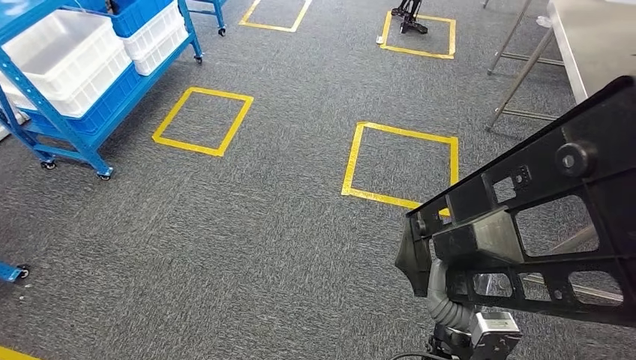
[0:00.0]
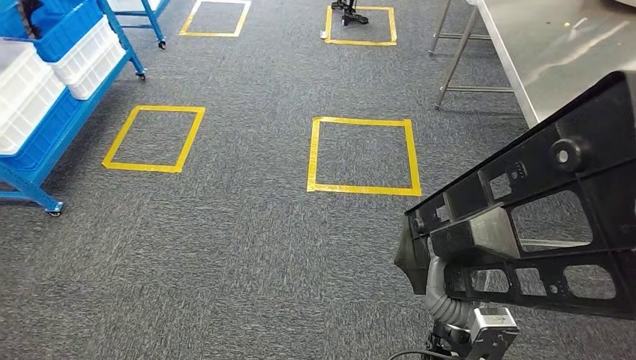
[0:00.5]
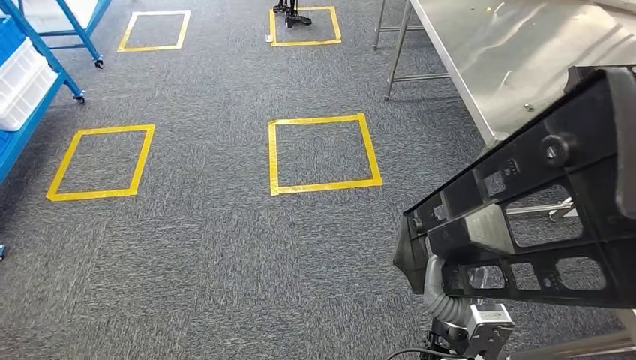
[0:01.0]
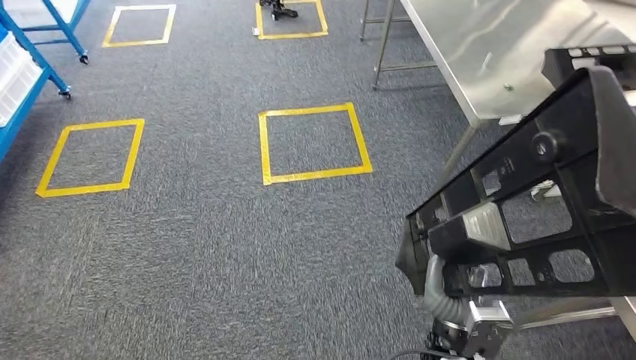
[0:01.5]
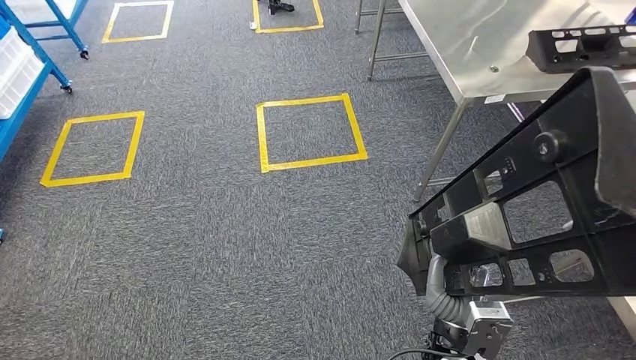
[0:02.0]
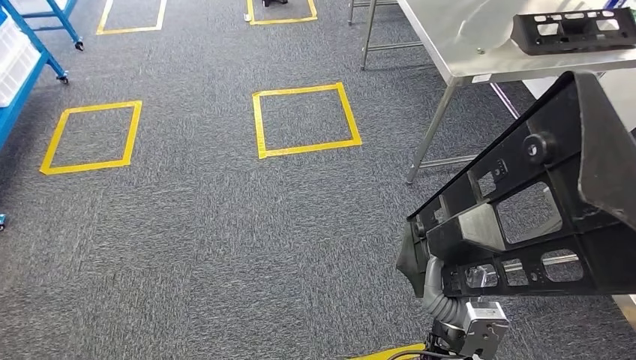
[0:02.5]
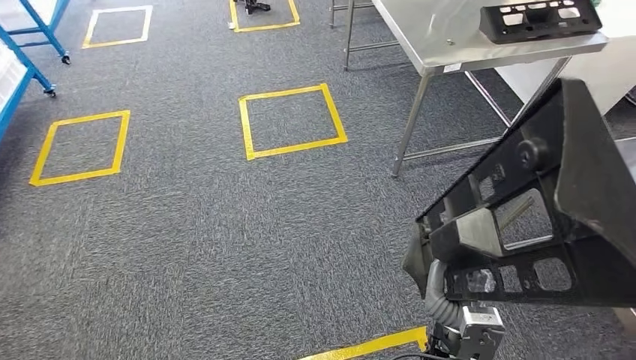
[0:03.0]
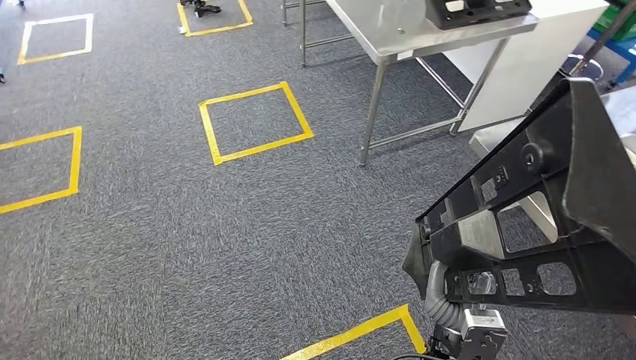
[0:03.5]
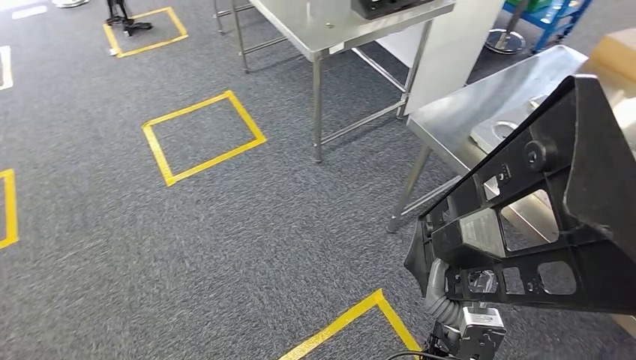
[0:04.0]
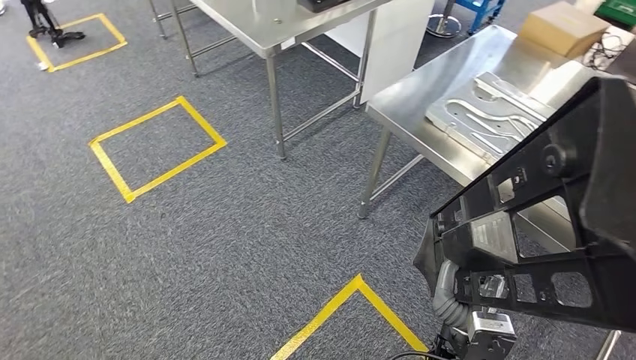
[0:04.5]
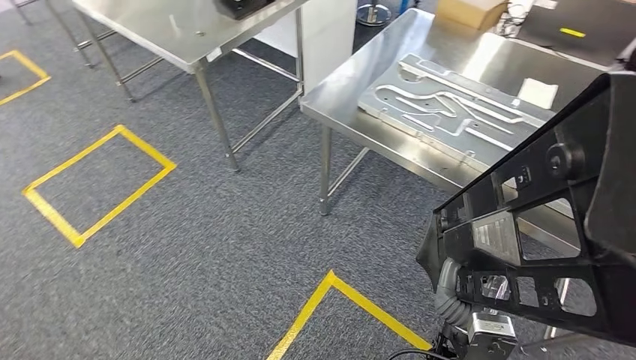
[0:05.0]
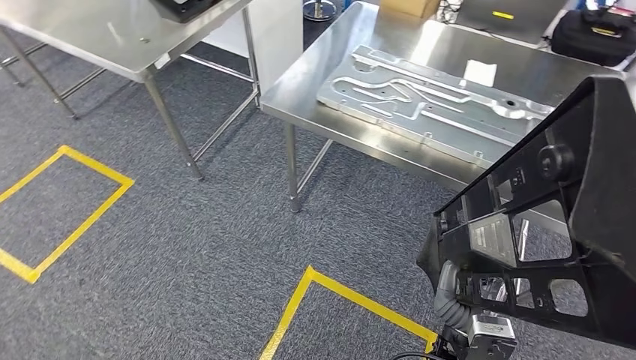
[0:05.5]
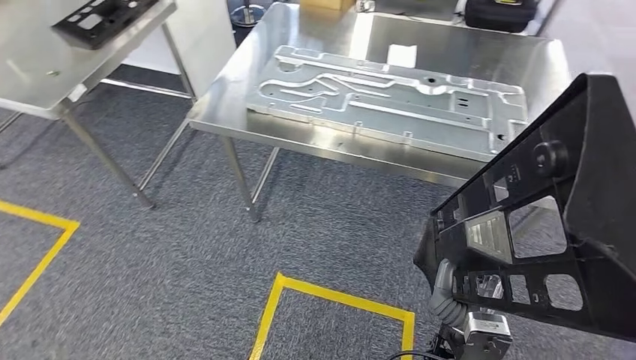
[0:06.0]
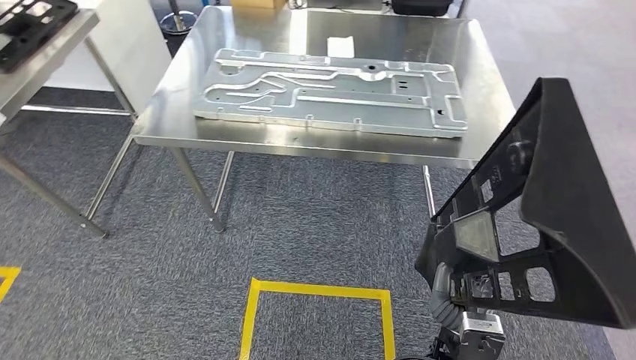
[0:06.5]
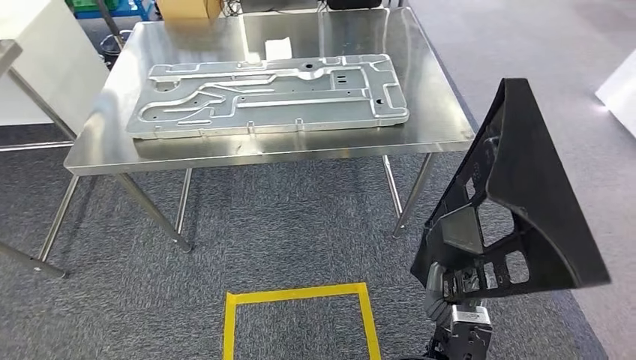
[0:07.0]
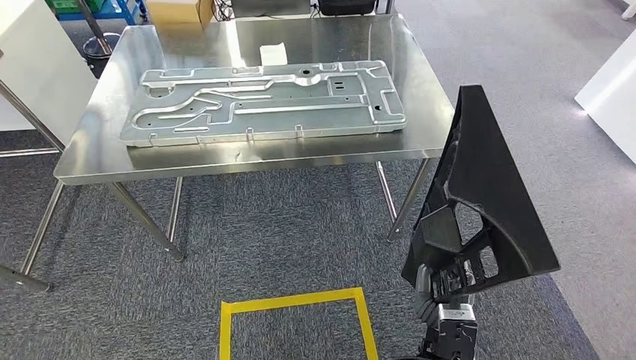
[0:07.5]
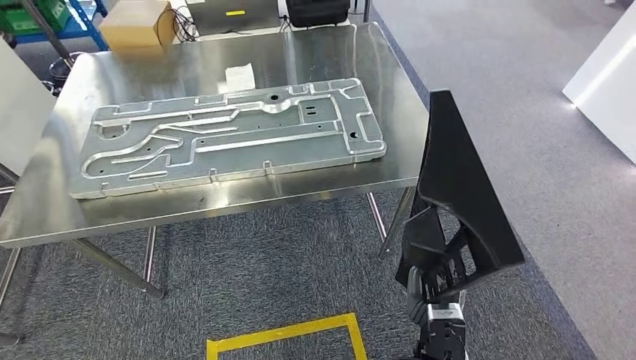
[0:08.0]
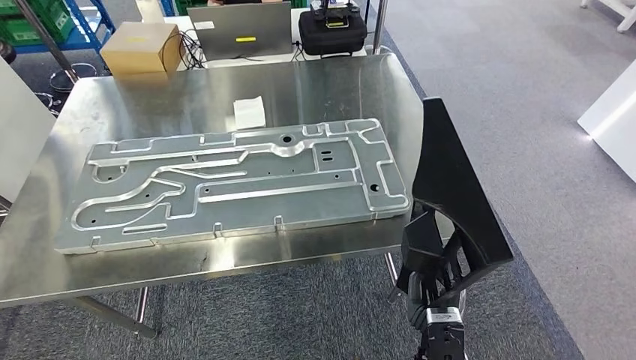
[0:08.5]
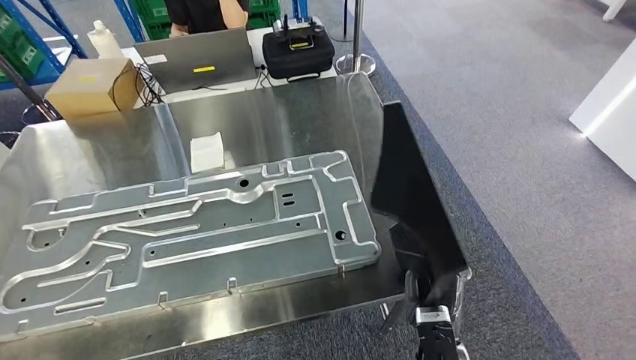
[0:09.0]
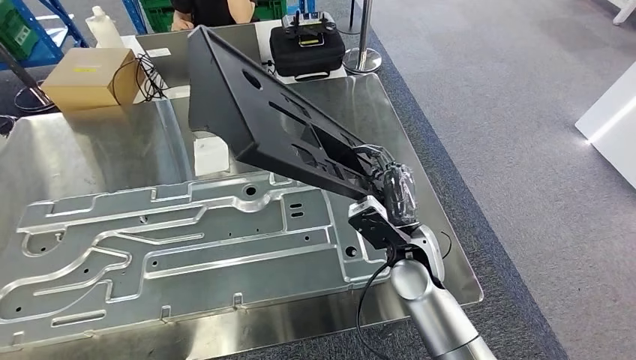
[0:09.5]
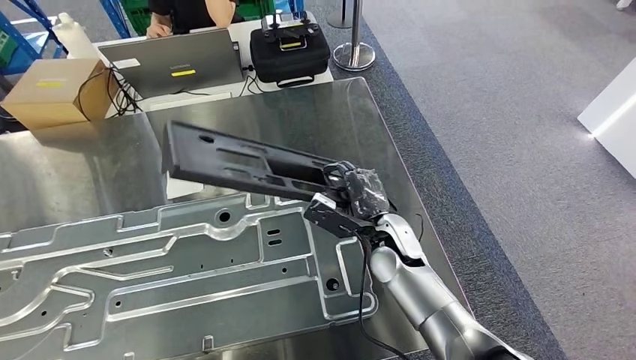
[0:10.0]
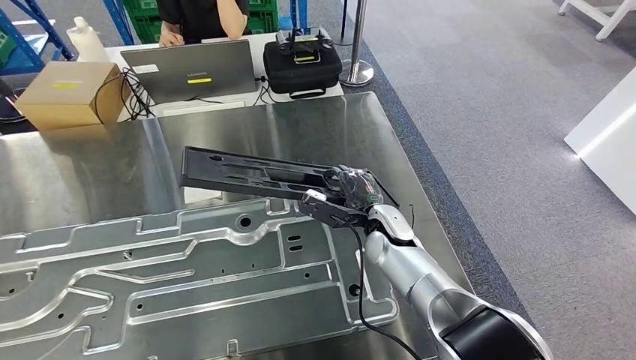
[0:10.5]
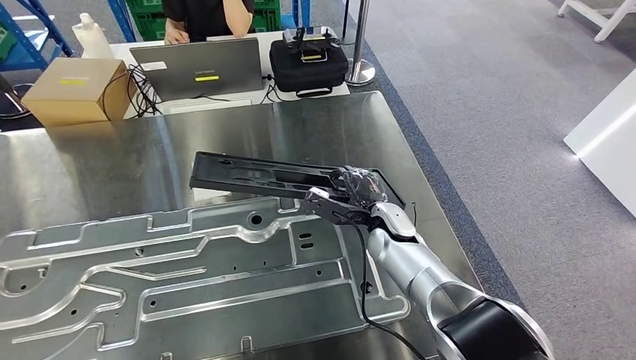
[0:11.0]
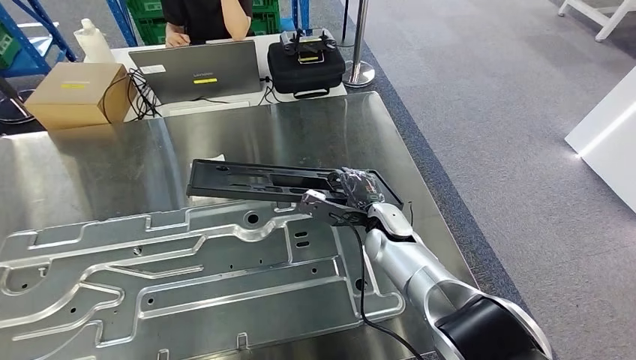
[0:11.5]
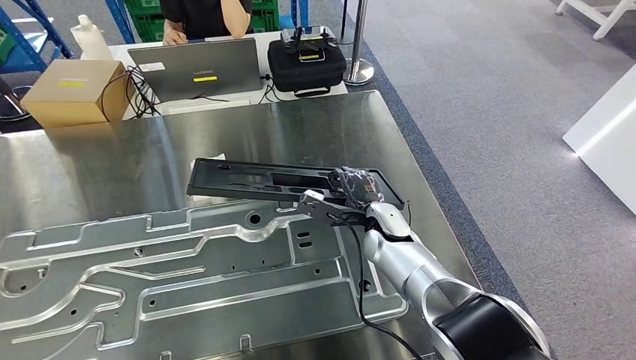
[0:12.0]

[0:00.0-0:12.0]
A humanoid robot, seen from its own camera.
Step, 0:00.0 to 0:09.0: Move the large material to the workbench.

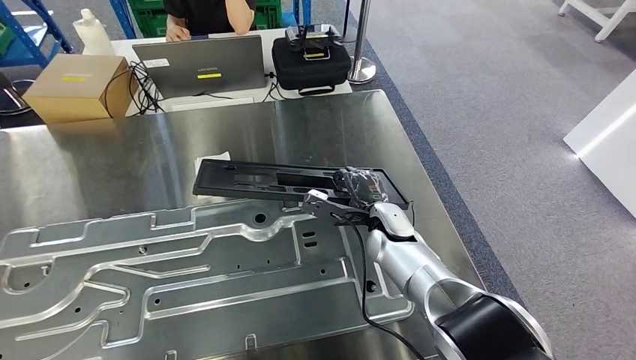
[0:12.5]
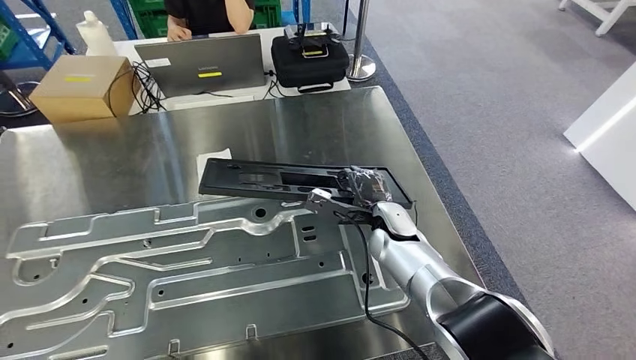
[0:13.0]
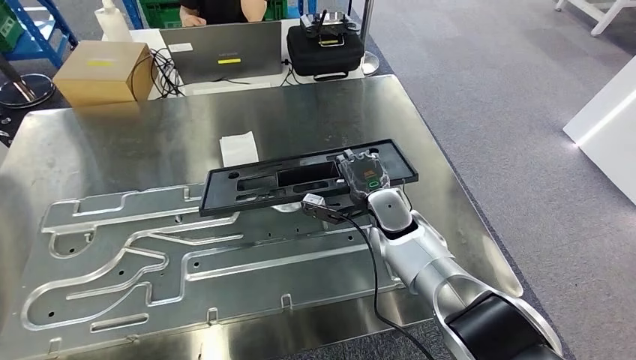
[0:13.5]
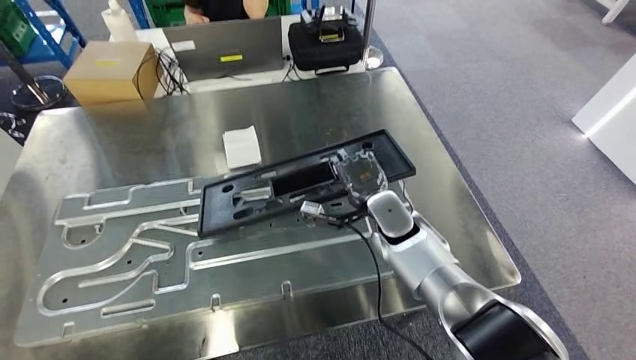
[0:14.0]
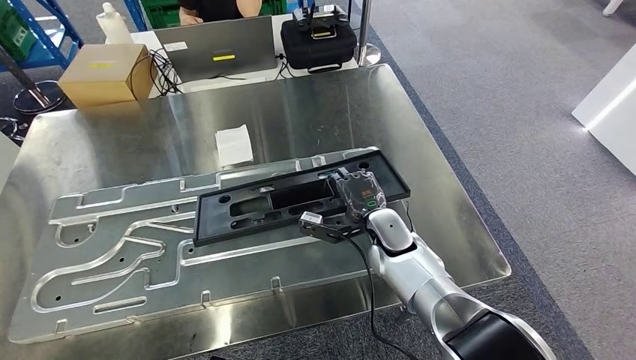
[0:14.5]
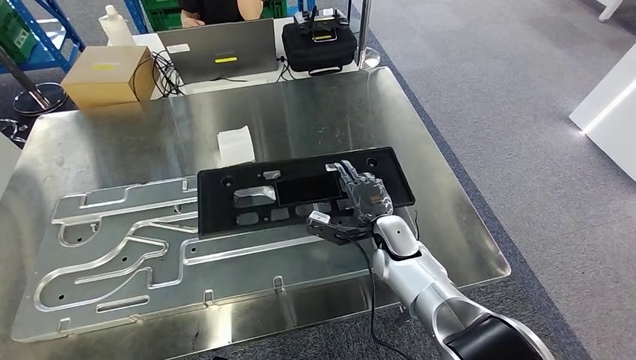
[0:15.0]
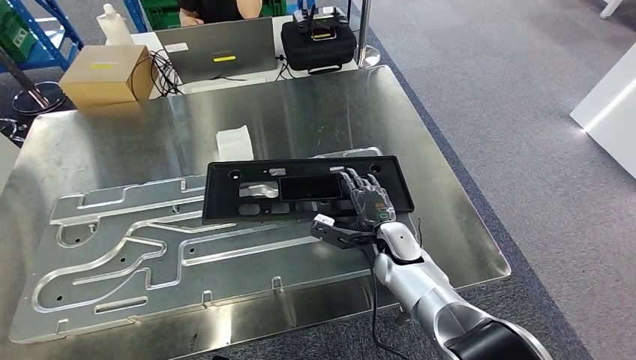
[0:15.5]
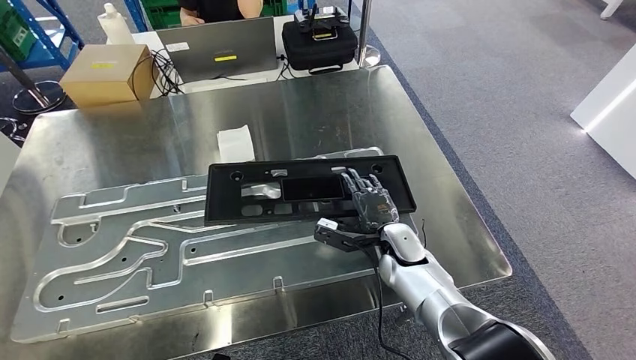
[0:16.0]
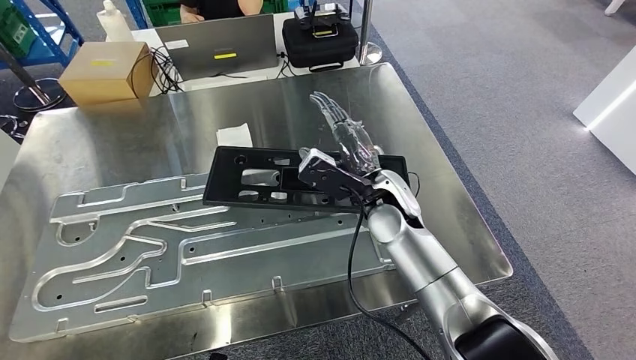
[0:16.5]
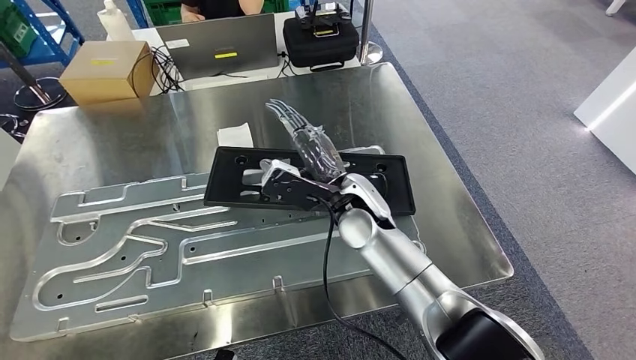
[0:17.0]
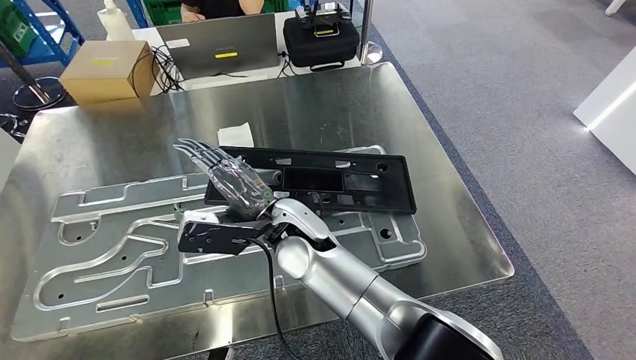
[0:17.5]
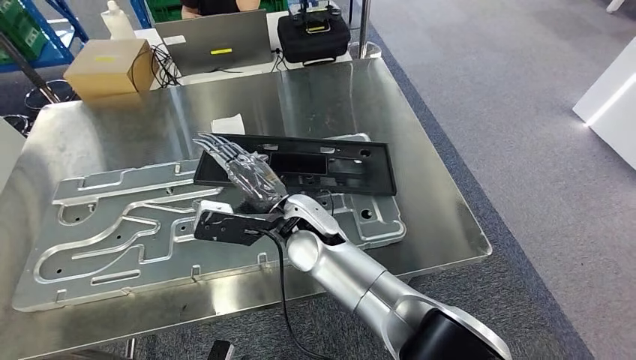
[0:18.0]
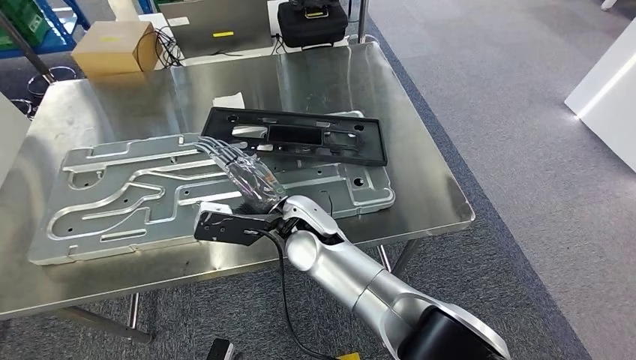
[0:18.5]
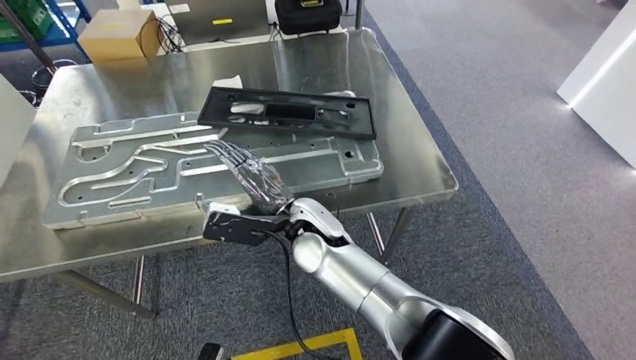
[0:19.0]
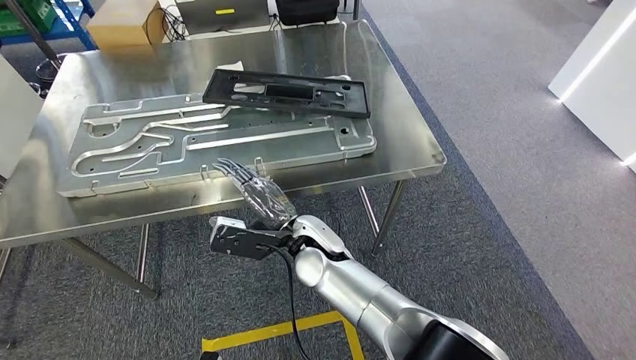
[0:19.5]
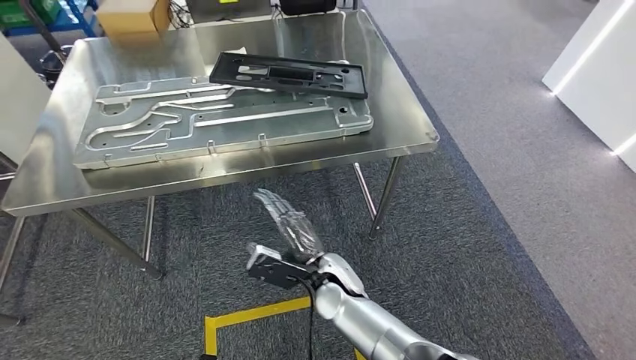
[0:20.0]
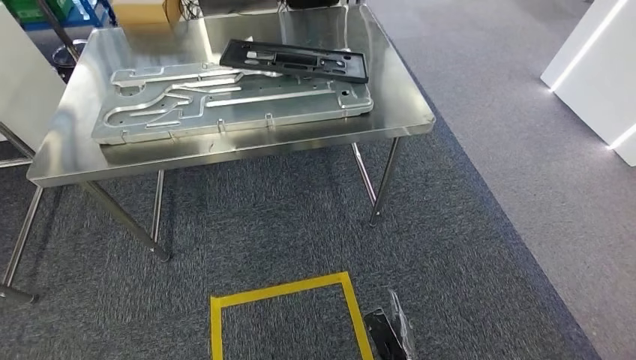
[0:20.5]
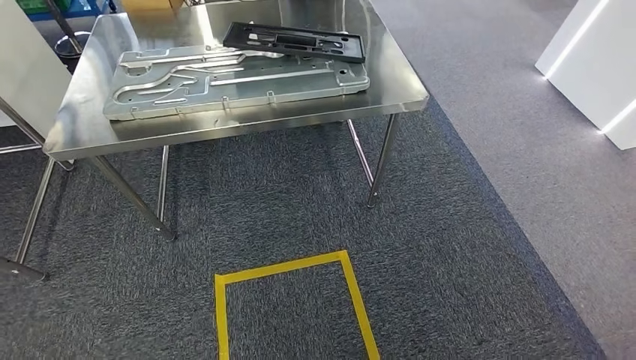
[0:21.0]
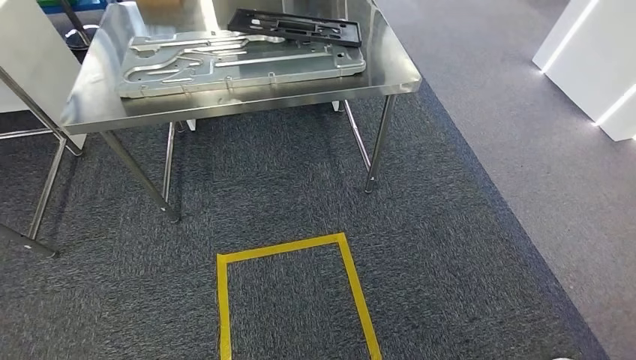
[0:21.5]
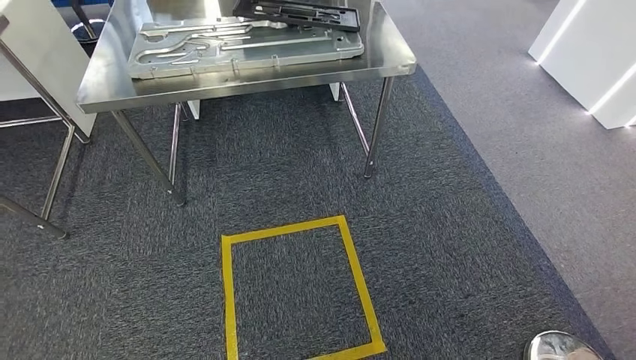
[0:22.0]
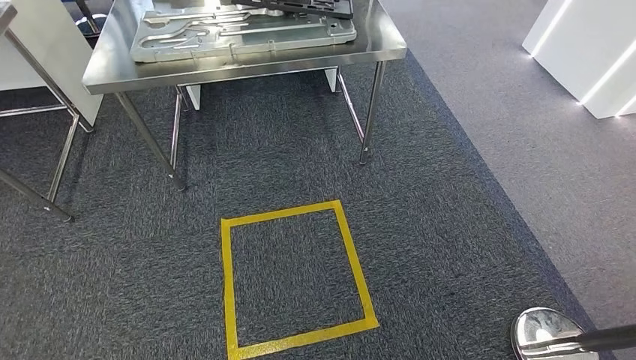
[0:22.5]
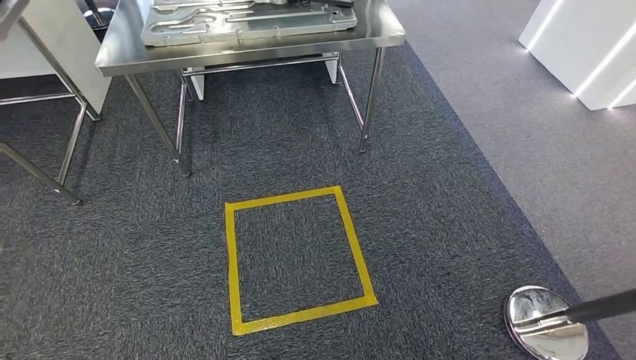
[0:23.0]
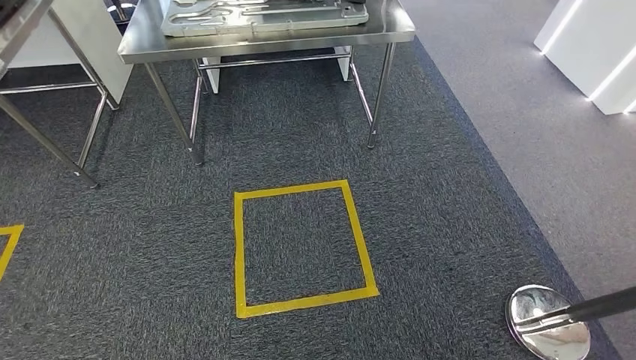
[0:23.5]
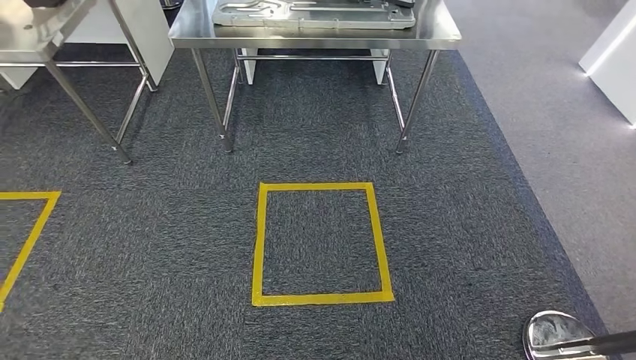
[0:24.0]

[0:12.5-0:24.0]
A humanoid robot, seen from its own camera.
Step, 0:12.5 to 0:20.0: Insert the large material into the corresponding slot on the workbench.
0:14.5 to 0:16.5: The right hand heads upward, covering some 10 cm.
